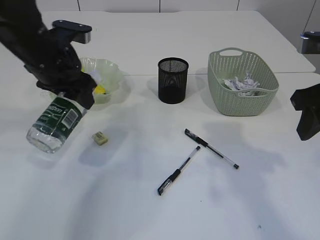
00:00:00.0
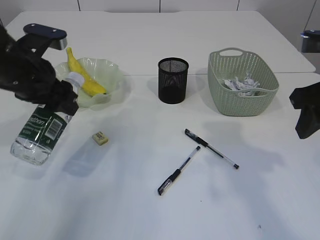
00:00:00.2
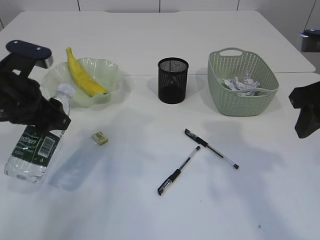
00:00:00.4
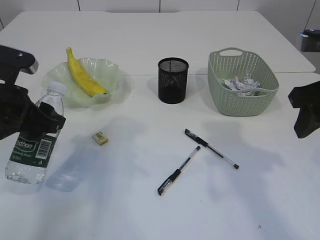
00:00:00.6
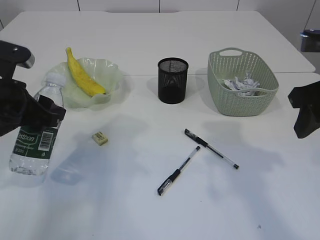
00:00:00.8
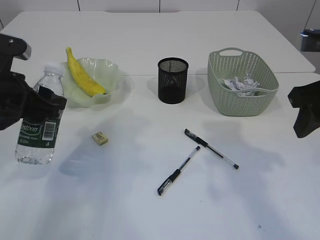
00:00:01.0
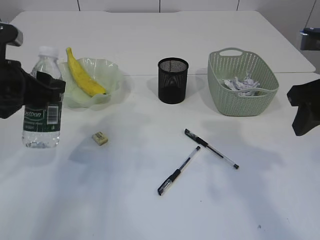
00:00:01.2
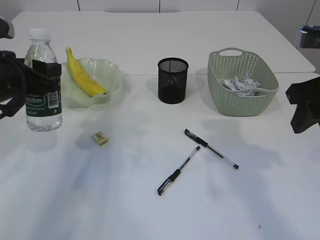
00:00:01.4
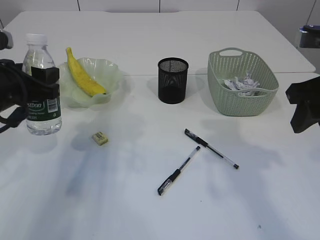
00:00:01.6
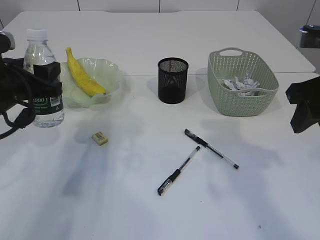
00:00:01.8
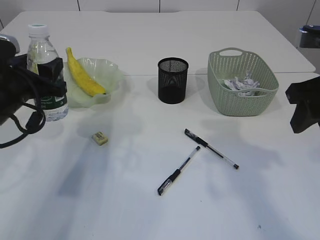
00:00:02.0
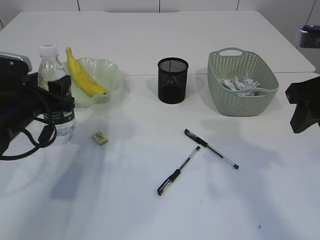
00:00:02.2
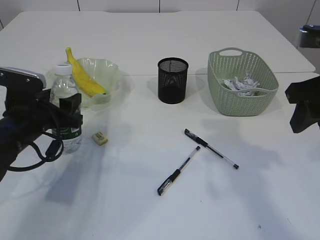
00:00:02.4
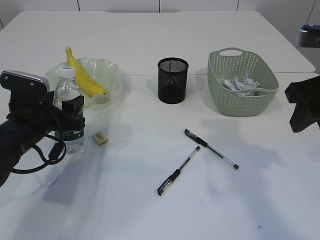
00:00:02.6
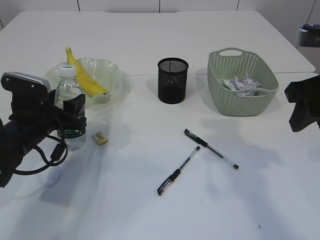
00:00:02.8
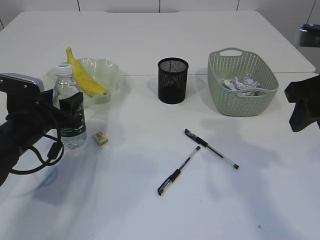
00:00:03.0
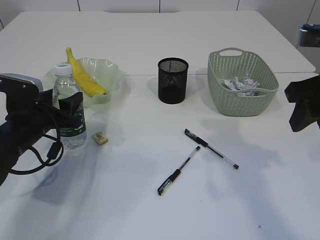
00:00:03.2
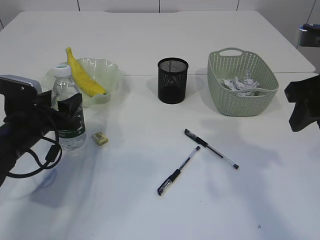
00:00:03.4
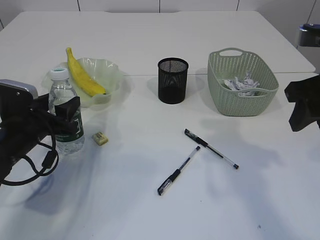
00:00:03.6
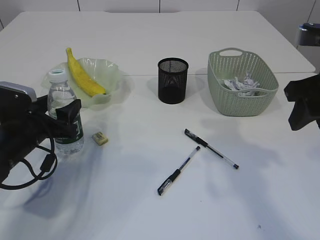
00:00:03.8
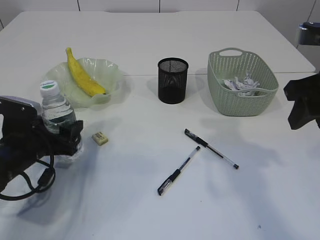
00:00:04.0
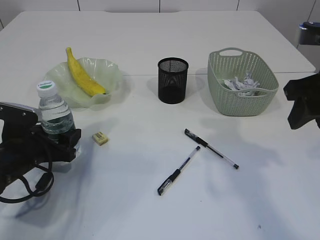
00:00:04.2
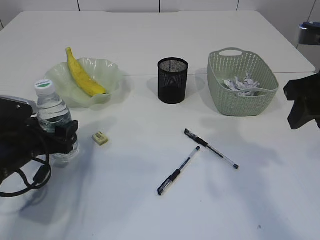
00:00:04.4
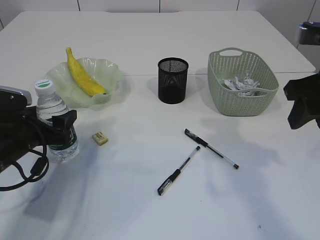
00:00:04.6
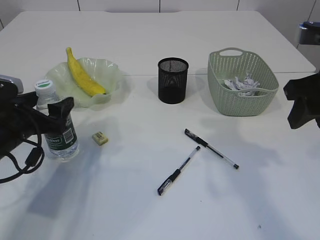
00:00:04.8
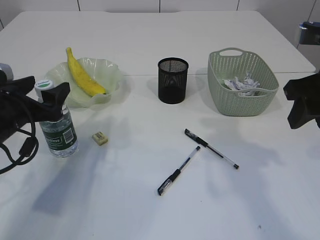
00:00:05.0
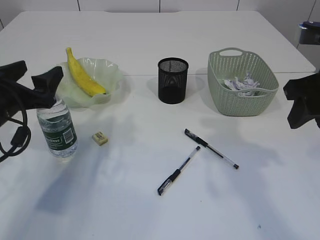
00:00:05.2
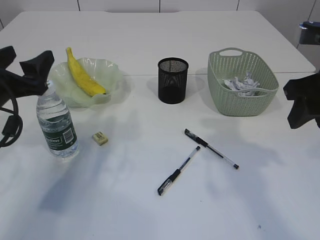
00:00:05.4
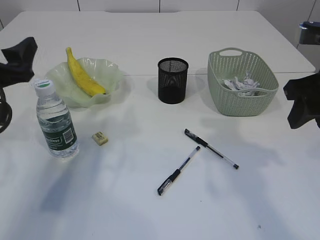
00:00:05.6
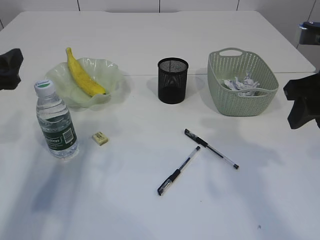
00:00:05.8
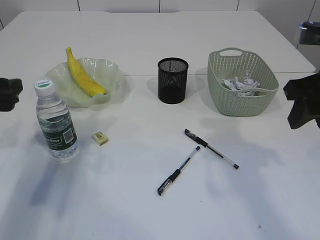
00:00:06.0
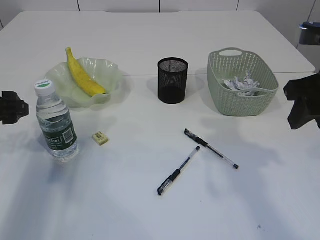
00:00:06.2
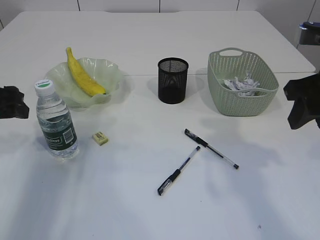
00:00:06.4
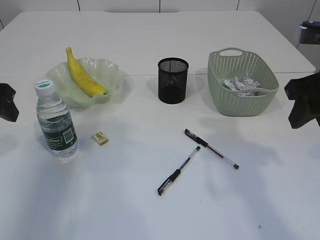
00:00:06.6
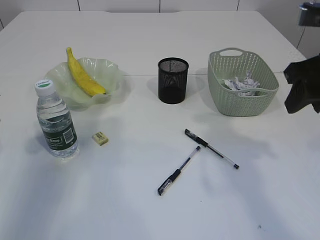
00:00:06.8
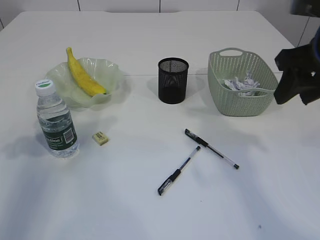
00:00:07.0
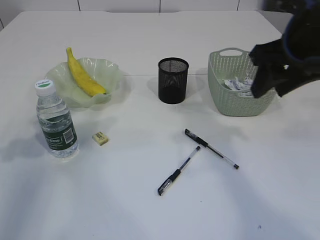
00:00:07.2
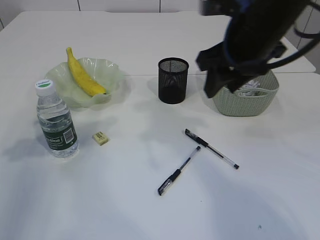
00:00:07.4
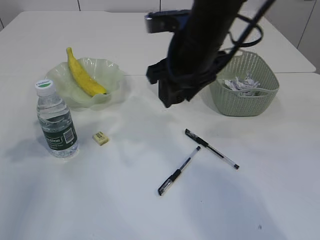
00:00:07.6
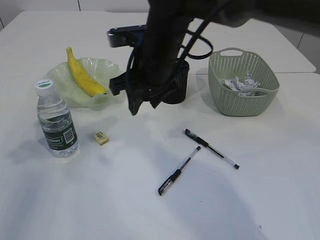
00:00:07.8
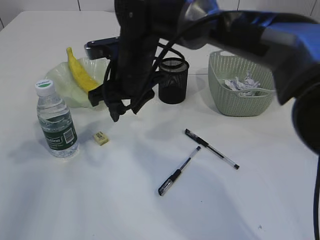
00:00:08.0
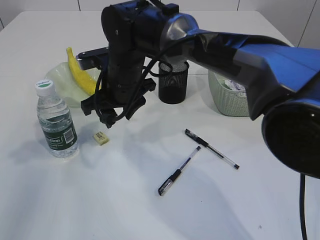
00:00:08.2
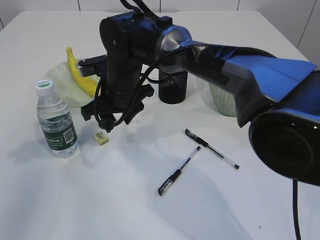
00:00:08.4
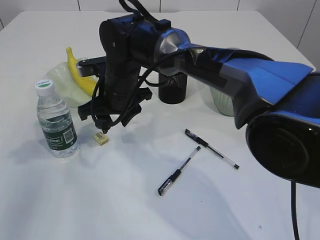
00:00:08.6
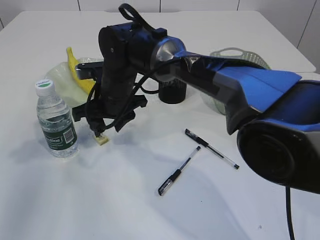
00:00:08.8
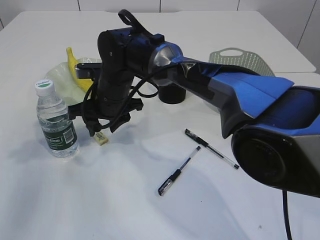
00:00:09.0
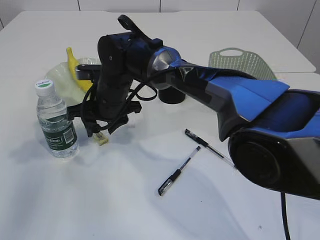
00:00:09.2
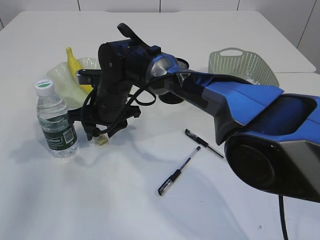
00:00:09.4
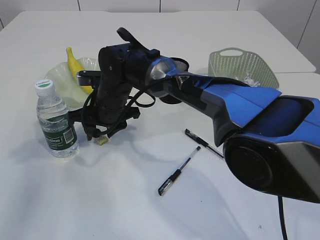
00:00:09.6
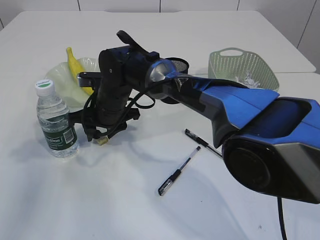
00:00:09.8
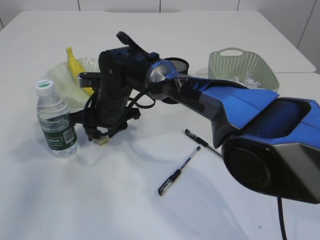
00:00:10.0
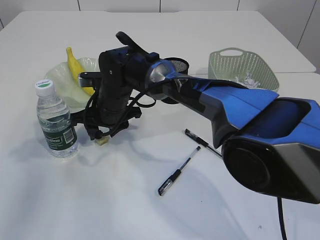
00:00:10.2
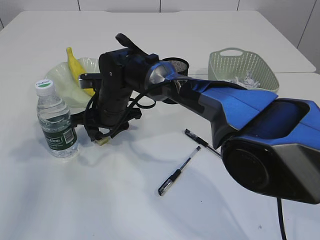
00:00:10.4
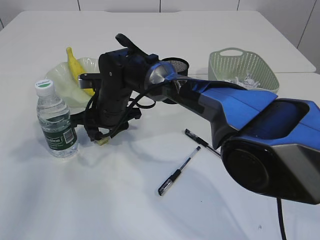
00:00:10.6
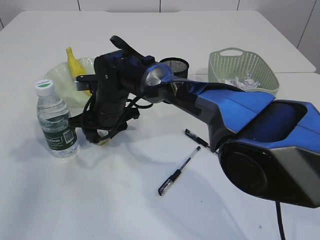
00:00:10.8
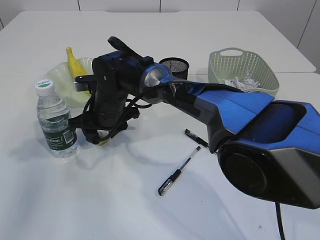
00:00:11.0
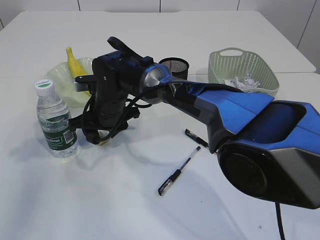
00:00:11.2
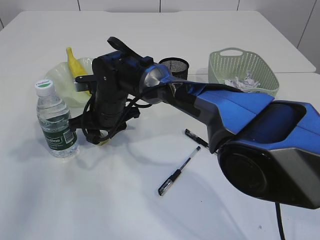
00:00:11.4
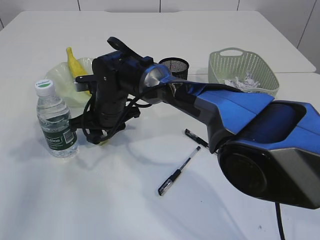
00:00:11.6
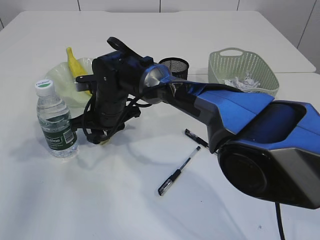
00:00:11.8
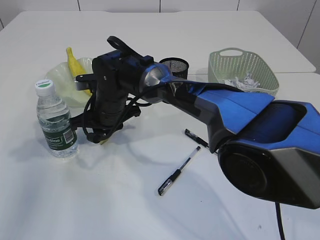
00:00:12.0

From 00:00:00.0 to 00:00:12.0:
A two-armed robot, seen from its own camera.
Step, from 00:00:00.0 to 00:00:05.2: Place the bottle.
From 00:00:00.0 to 00:00:01.6: The left gripper shifts roughly 10 cm backward and to the left.
From 00:00:01.6 to 00:00:03.0: The left gripper heads downward, covering approximately 10 cm.
From 00:00:03.0 to 00:00:04.4: The left gripper opens.
From 00:00:04.4 to 00:00:06.0: The left gripper heads upward and to the left, covering about 10 cm.
From 00:00:06.0 to 00:00:07.6: The left gripper travels upward and to the left by about 10 cm. The right gripper heads to the left and forward, covering roughly 20 cm.
From 00:00:07.6 to 00:00:09.0: The right gripper heads to the left and downward, covering approximately 20 cm.
From 00:00:09.0 to 00:00:10.4: There are only small adjustments of the grippers.
From 00:00:10.4 to 00:00:12.0: The right gripper closes.

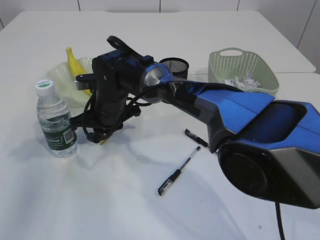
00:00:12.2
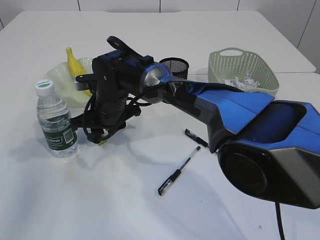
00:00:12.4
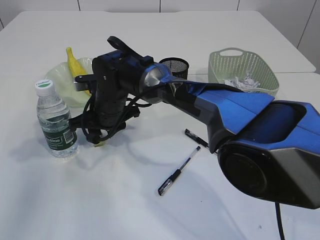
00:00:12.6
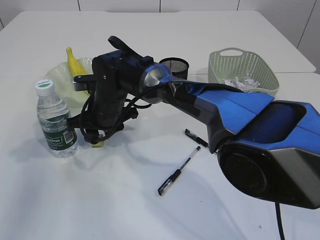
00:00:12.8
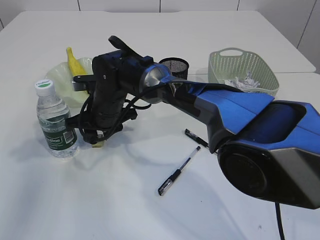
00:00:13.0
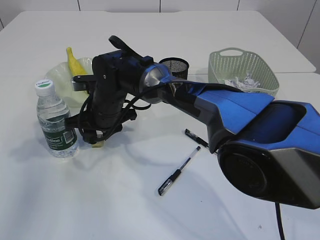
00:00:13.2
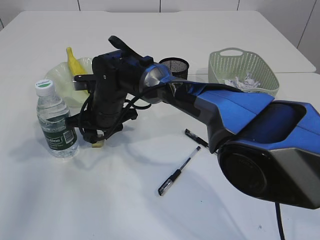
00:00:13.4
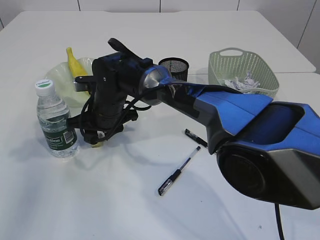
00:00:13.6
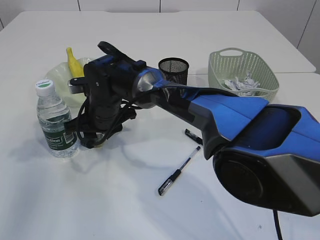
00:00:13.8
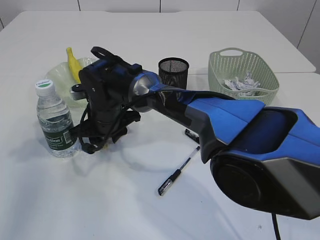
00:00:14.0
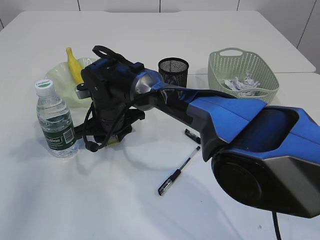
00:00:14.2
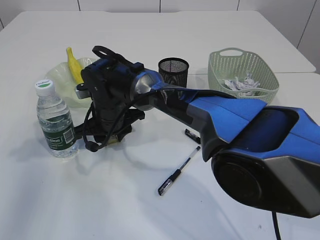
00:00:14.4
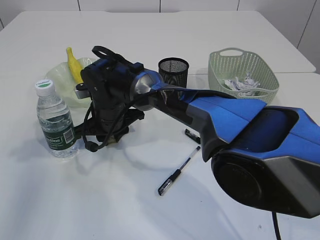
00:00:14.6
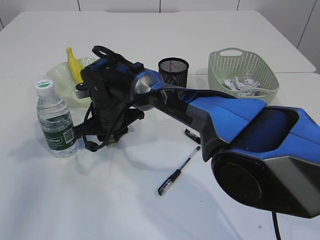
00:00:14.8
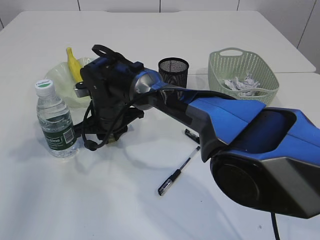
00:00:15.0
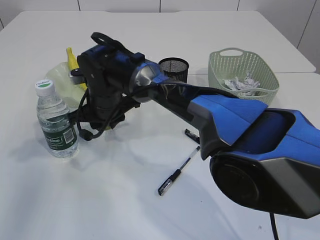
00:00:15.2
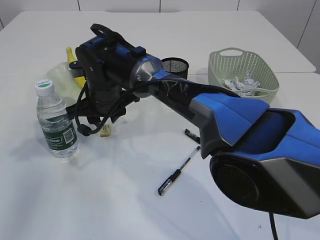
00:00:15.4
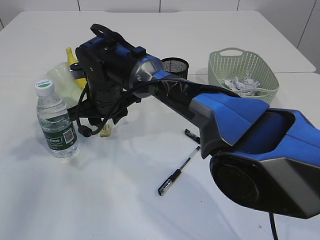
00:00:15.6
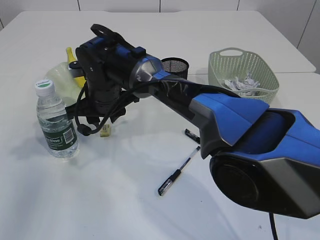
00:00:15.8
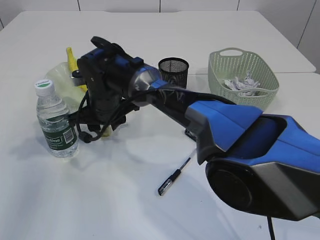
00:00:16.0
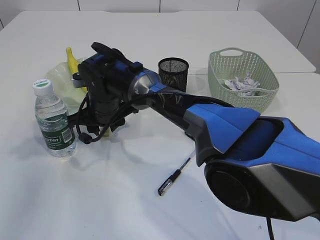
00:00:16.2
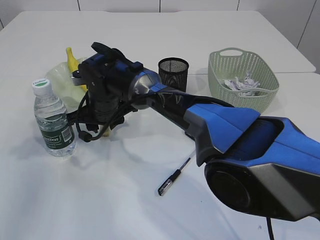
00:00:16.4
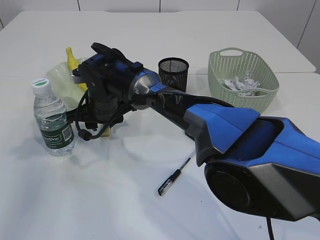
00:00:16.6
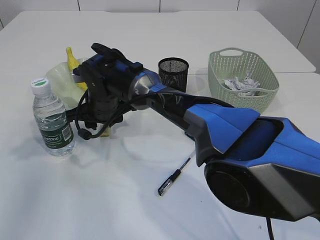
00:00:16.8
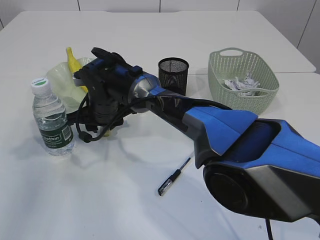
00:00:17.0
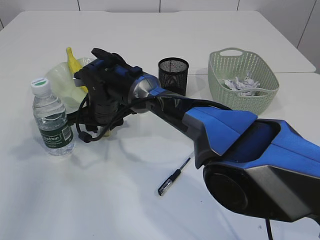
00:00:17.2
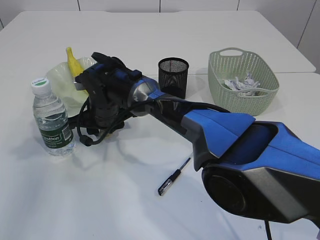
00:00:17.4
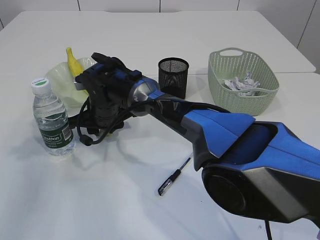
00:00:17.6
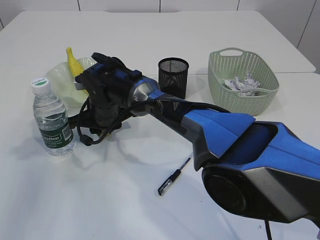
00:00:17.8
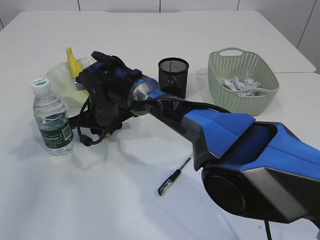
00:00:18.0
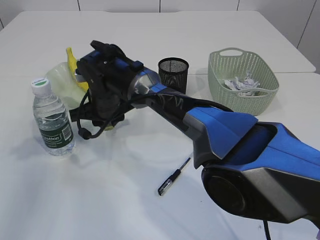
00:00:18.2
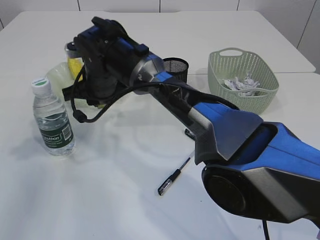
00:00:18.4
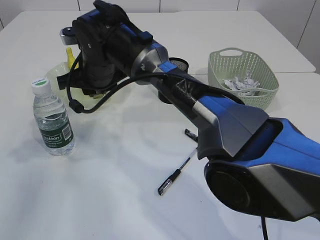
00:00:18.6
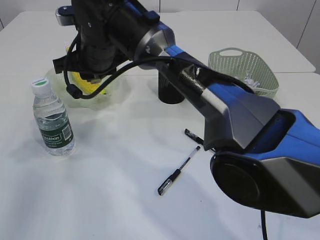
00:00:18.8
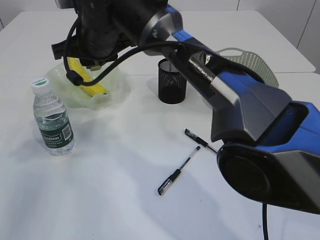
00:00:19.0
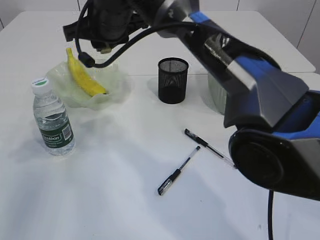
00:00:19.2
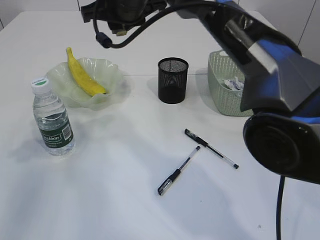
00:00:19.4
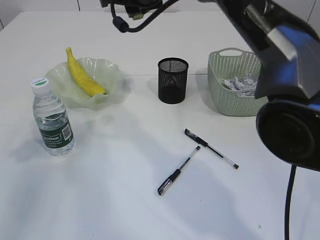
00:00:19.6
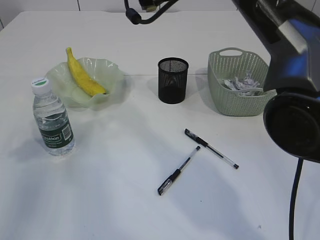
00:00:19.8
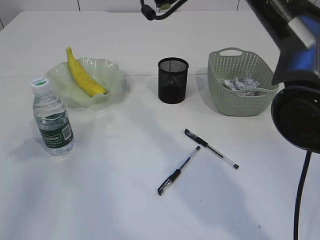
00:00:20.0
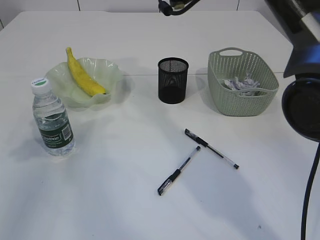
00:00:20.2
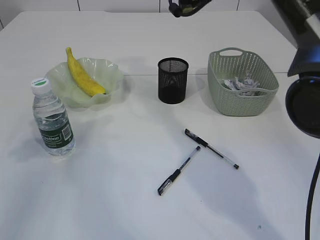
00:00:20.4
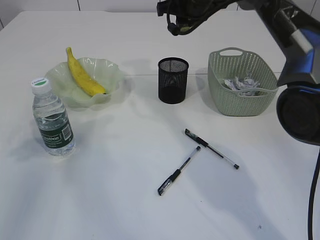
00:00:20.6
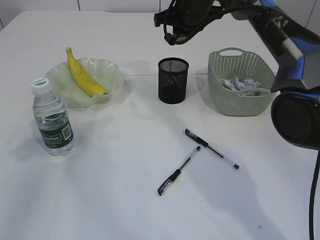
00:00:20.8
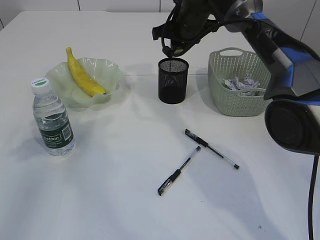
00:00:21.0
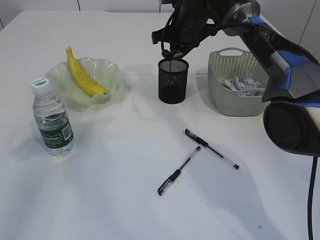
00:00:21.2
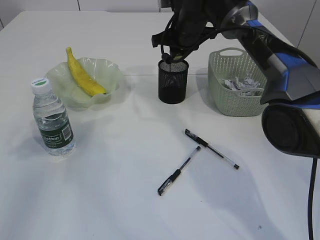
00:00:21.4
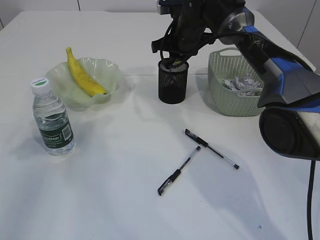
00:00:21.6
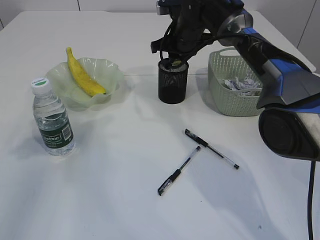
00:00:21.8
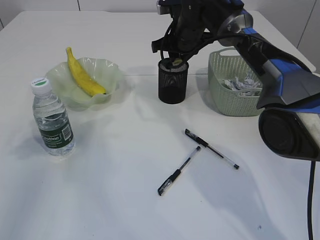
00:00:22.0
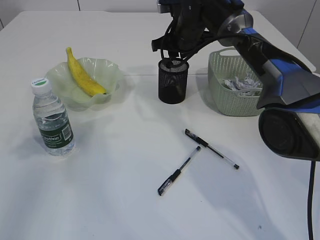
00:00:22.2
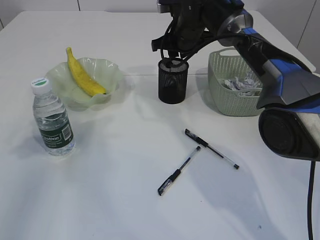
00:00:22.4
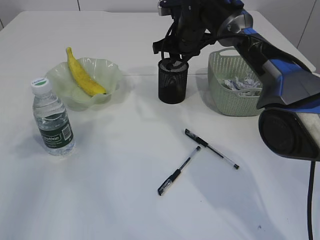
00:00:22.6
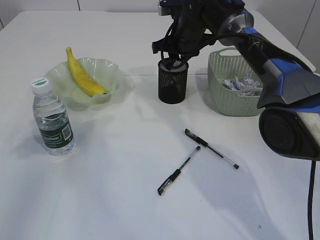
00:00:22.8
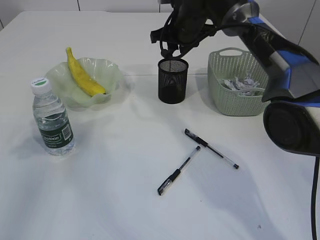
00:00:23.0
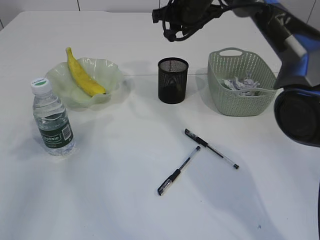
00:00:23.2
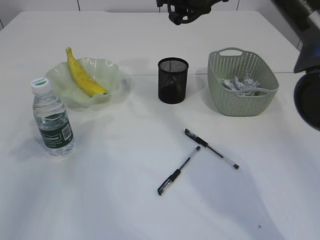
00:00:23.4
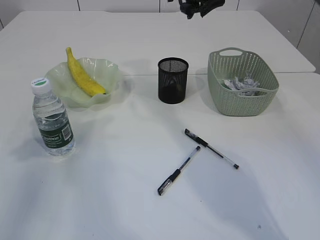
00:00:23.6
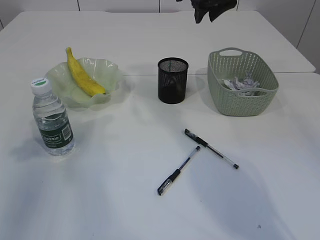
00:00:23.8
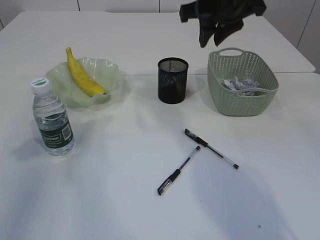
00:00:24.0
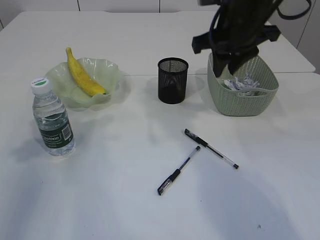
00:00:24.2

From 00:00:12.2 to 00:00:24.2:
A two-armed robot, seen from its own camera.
Step, from 00:00:12.2 to 00:00:18.4: Pick up the eraser.
Step, from 00:00:18.6 to 00:00:23.0: Place the eraser into the pen holder.
From 00:00:12.2 to 00:00:13.8: Both grippers stay about where they are.
From 00:00:13.8 to 00:00:18.2: There are only small adjustments of the grippers.
From 00:00:18.2 to 00:00:19.8: The right gripper moves upward and to the right, some 25 cm.
From 00:00:19.8 to 00:00:21.2: The right gripper goes some 15 cm downward, forward and to the right.
From 00:00:21.2 to 00:00:22.6: There are only small adjustments of the grippers.
From 00:00:22.6 to 00:00:24.2: The right gripper heads backward, upward and to the right, covering about 15 cm.
